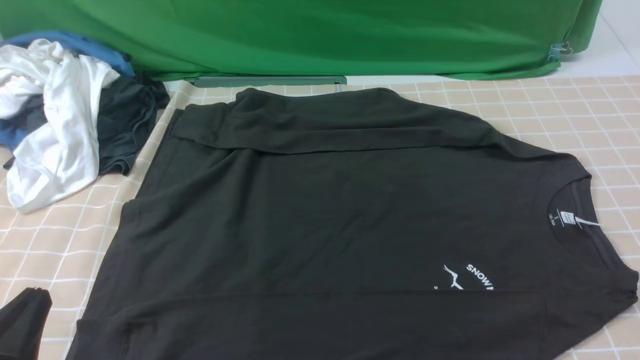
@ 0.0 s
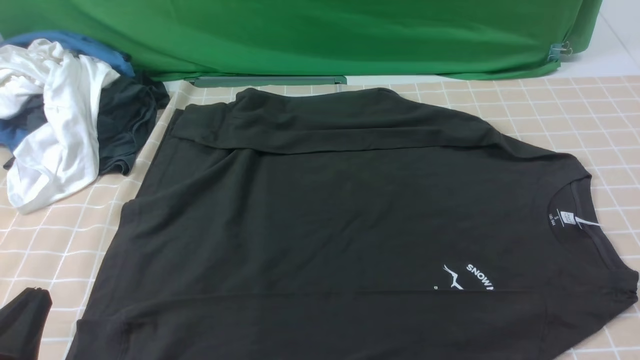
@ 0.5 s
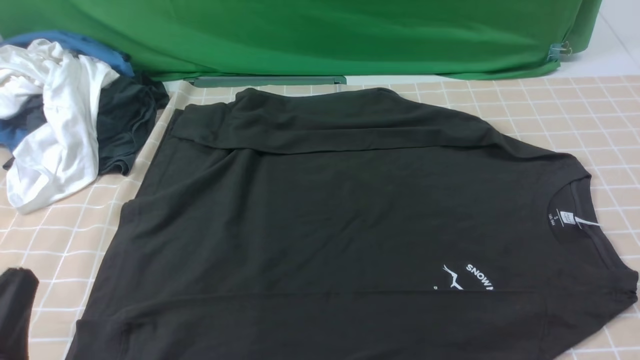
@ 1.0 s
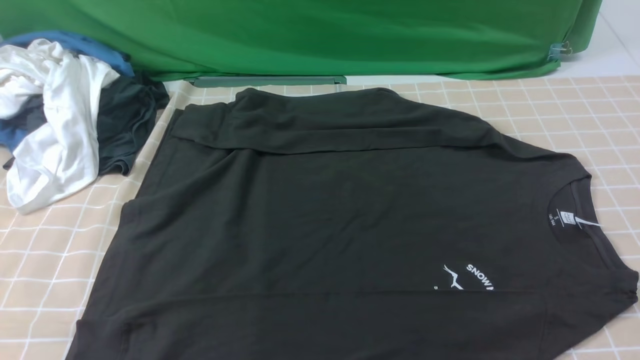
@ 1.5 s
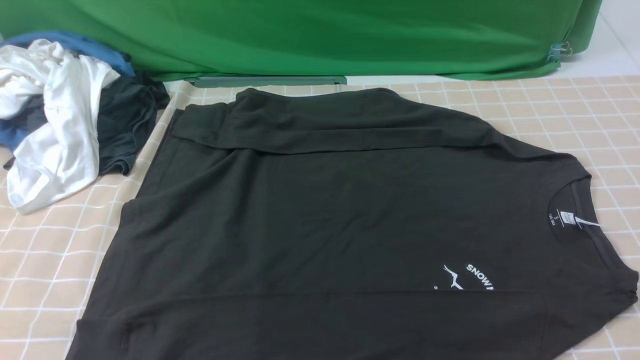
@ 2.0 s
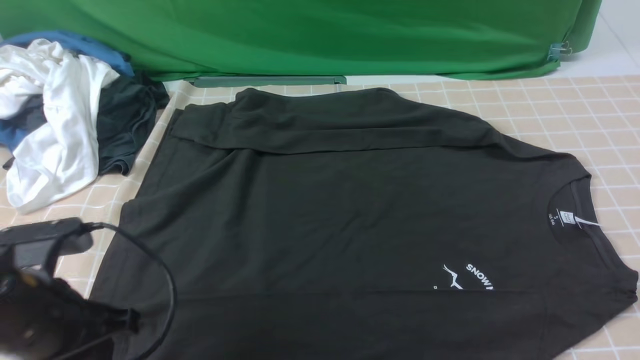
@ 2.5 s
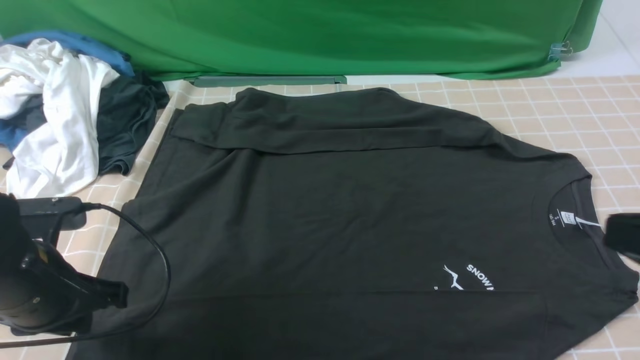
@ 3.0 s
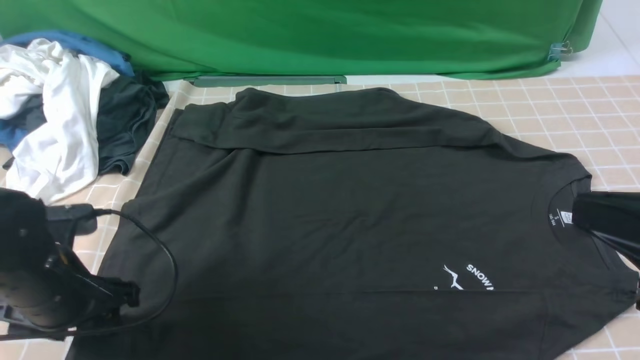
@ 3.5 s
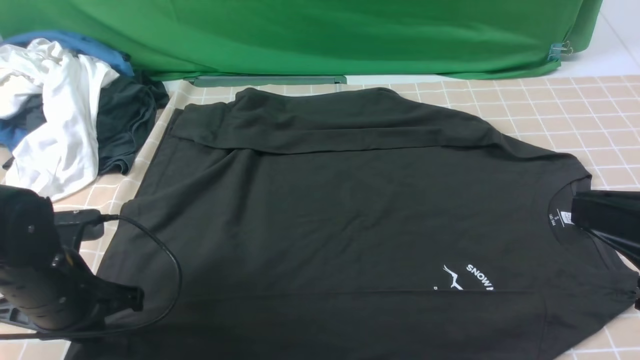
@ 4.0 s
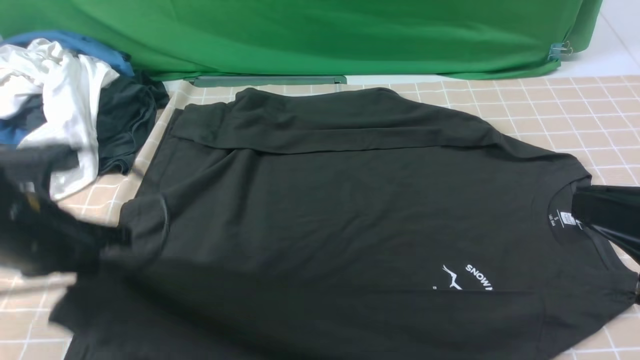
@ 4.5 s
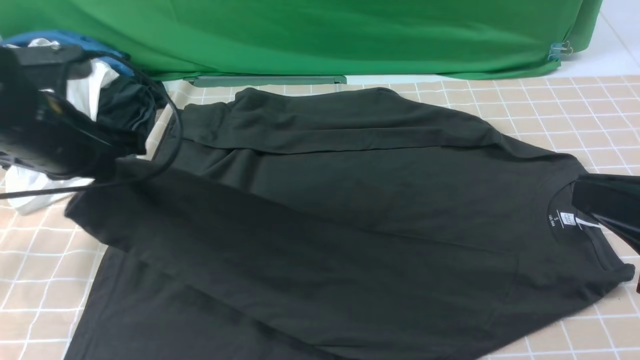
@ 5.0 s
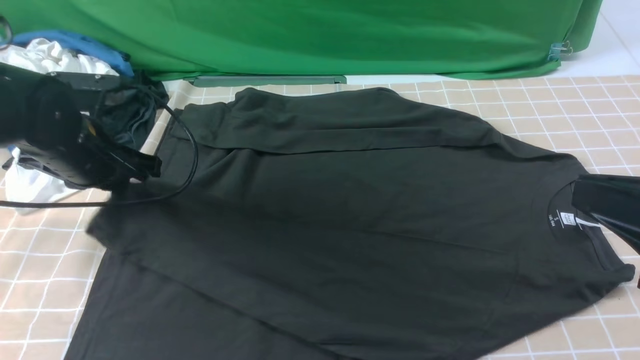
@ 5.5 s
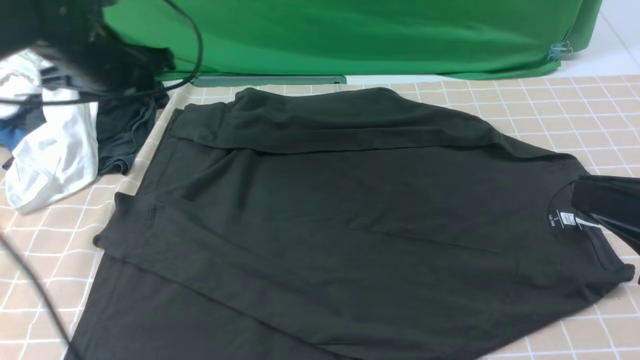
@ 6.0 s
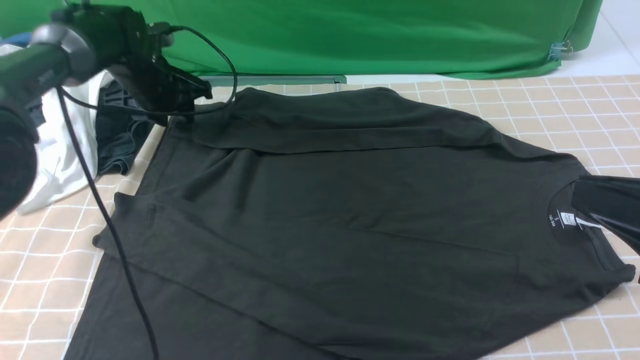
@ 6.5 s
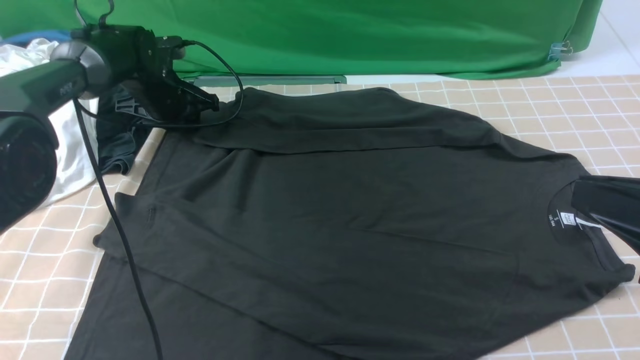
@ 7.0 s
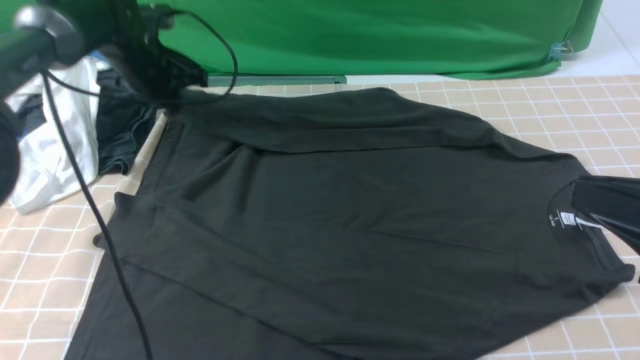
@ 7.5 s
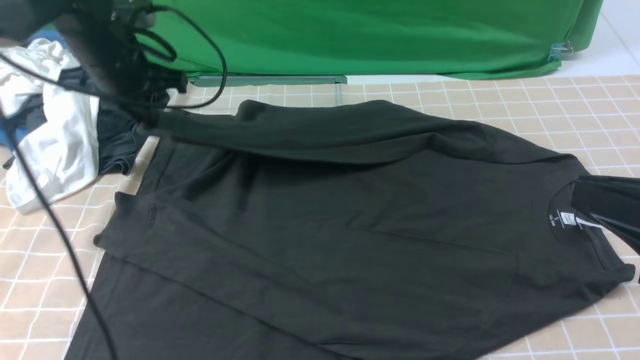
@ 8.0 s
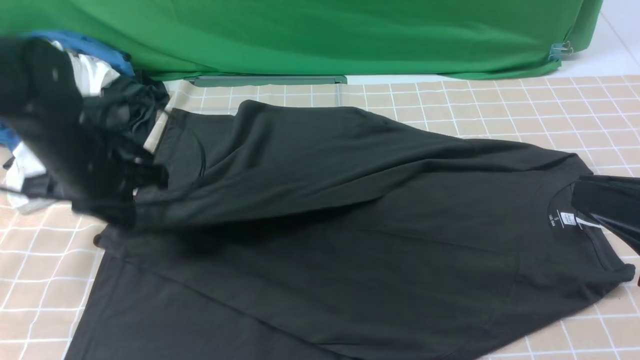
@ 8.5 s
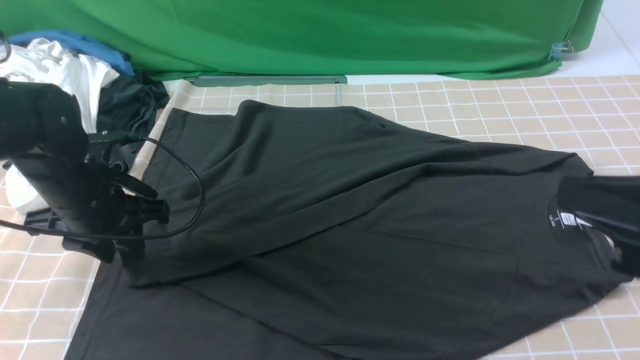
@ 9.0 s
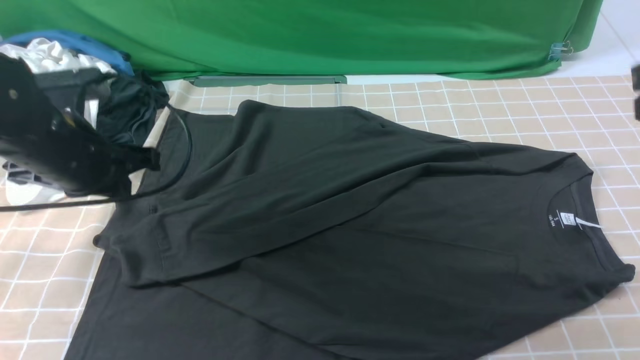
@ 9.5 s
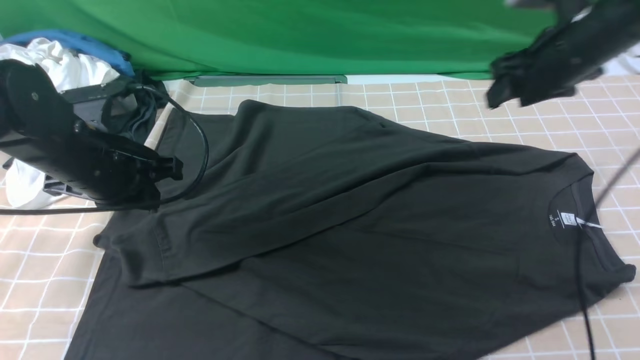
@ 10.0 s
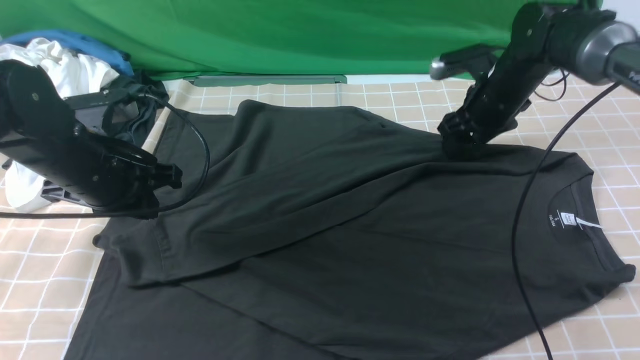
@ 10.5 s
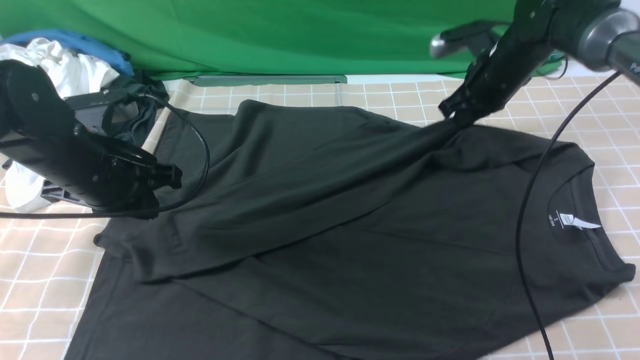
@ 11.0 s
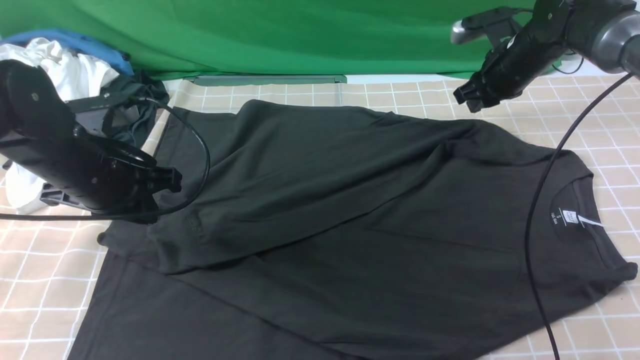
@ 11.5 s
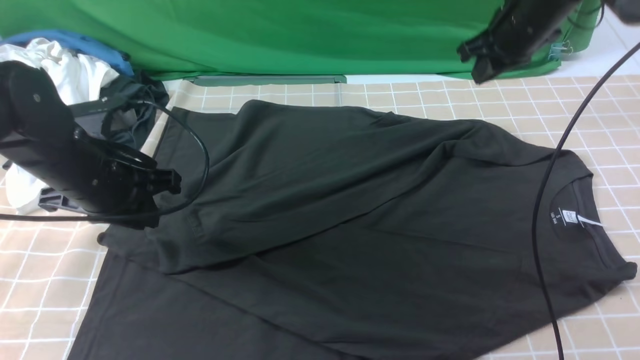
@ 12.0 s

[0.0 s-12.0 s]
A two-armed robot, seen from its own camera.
Step, 0.0 to 3.5 s: use the left arm to clamp the cuff closest to it.
Step, 4.0 to 5.5 s: use the left arm to drag and place the cuff at the centered position on the left edge of the fabric.
Step, 6.0 to 7.0 s: use the left arm to clamp the cuff farthest from it.
0.0 to 2.0 s: The left gripper goes roughly 10 cm upward.
2.0 to 4.0 s: The right gripper travels upward, to the left and forward by some 15 cm, and closes its fingers, while the left gripper is displaced forward and downward by about 20 cm, and opens, then closes again.
4.0 to 6.0 s: The left gripper moves forward and upward, some 20 cm, and opens its fingers.
6.0 to 8.0 s: The left gripper reaches approximately 10 cm downward, then returns, and closes its fingers.
8.0 to 10.0 s: The right gripper moves forward, roughly 35 cm, and opens, while the left gripper heads backward, covering roughly 10 cm, and opens, then closes again.
10.0 to 12.0 s: The right gripper shifts approximately 5 cm forward, reaches approximately 10 cm downward, then returns, and closes up.

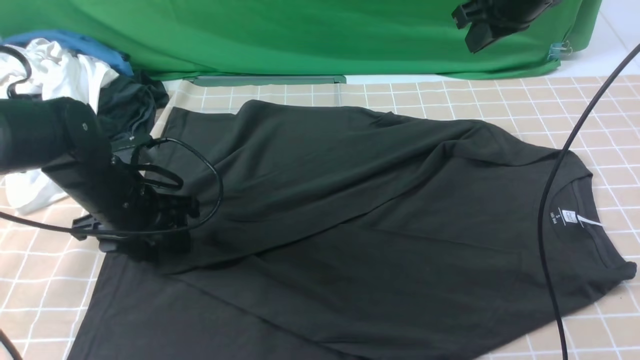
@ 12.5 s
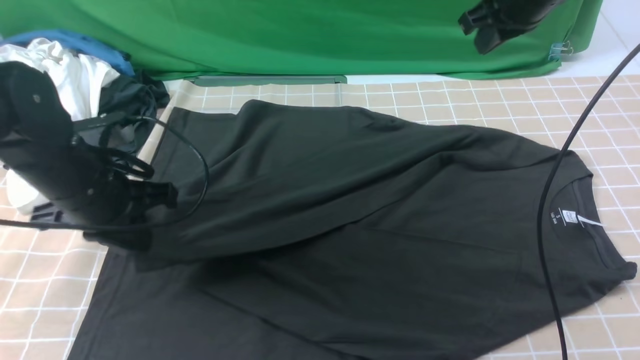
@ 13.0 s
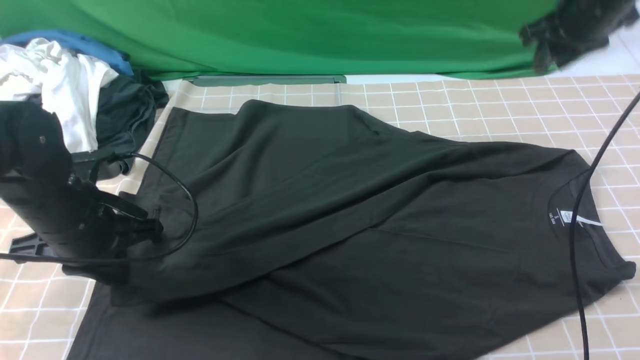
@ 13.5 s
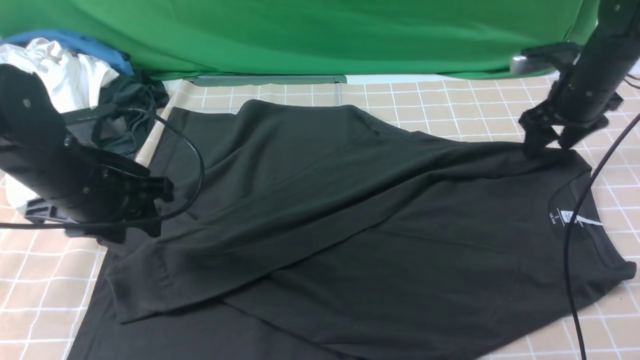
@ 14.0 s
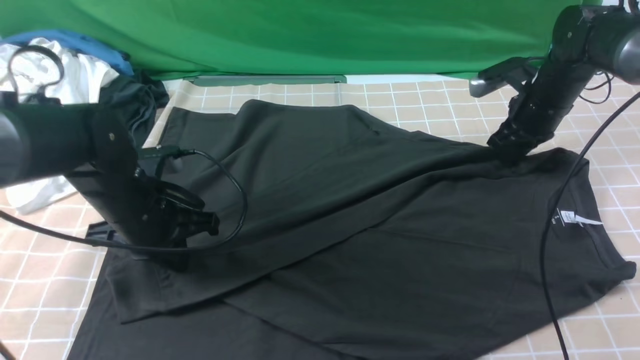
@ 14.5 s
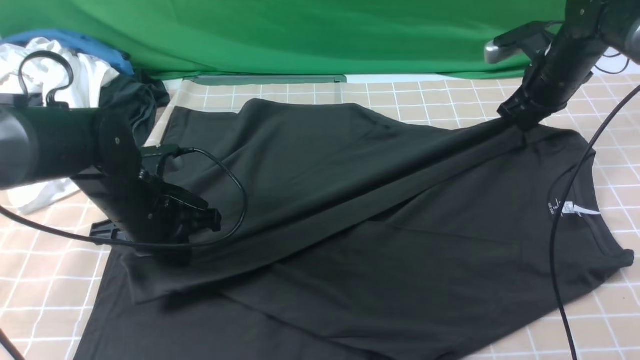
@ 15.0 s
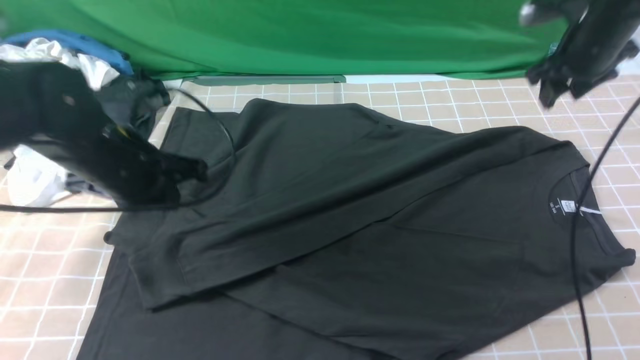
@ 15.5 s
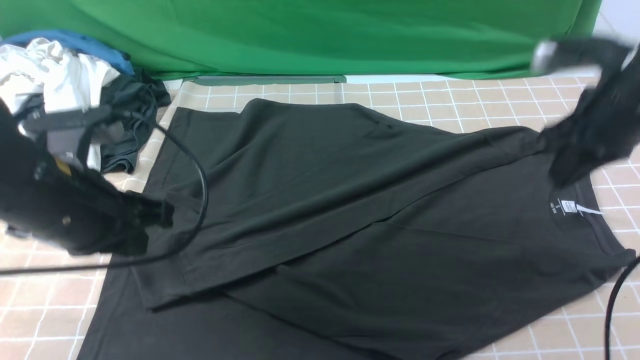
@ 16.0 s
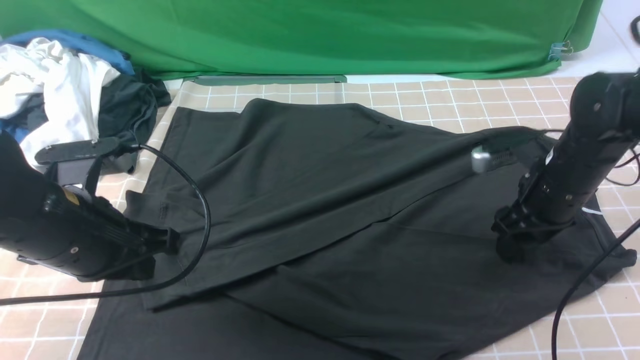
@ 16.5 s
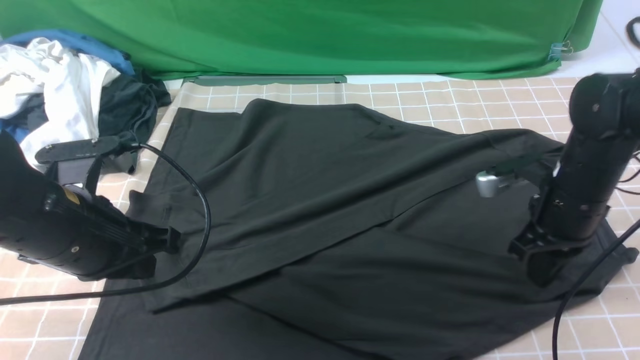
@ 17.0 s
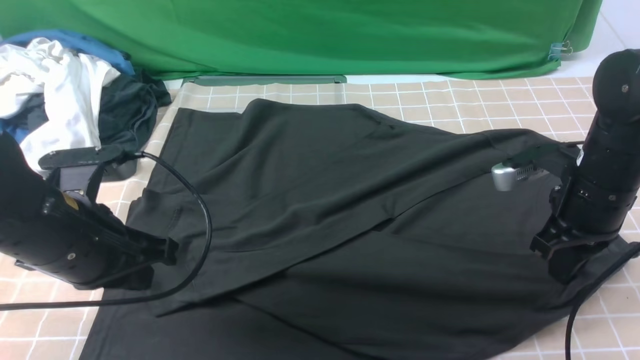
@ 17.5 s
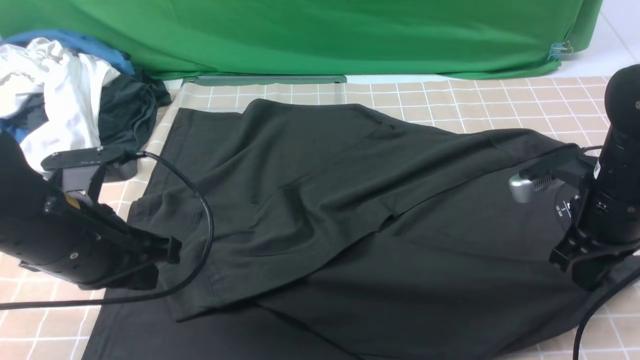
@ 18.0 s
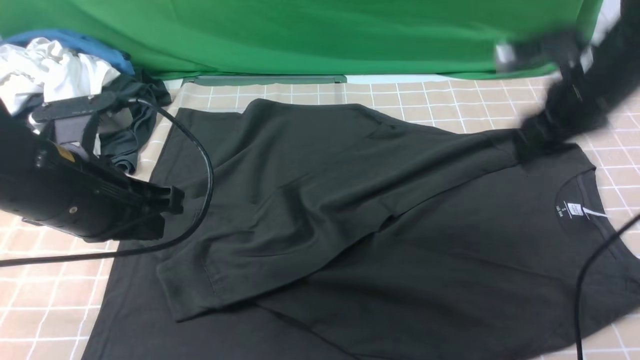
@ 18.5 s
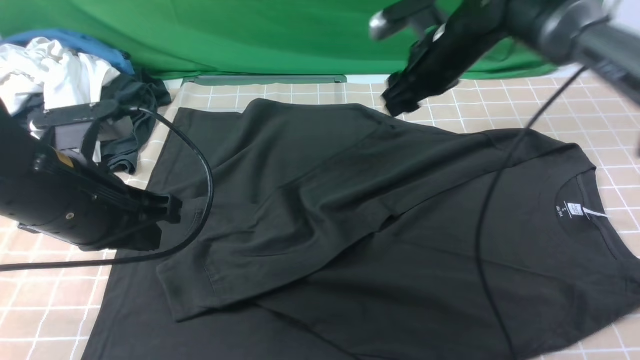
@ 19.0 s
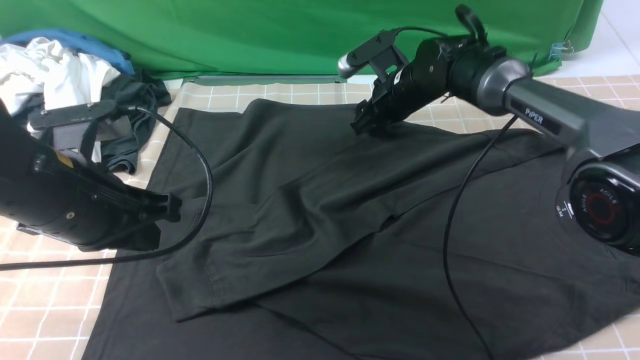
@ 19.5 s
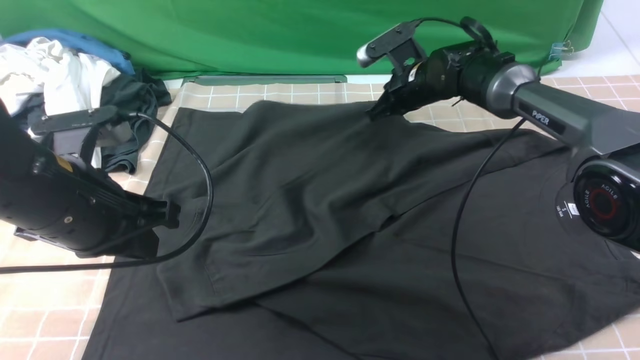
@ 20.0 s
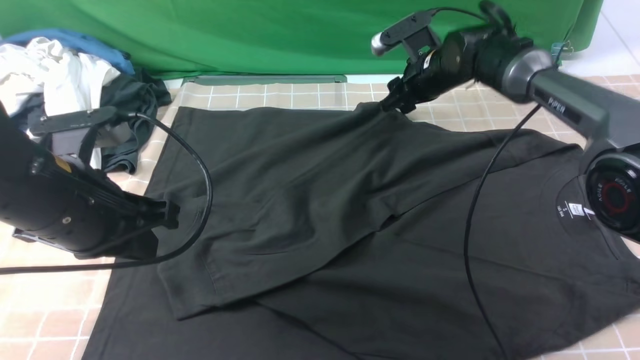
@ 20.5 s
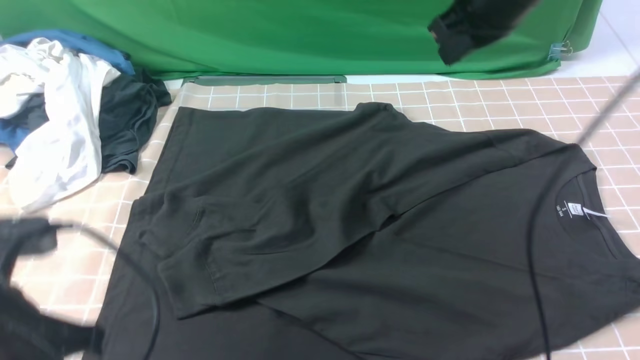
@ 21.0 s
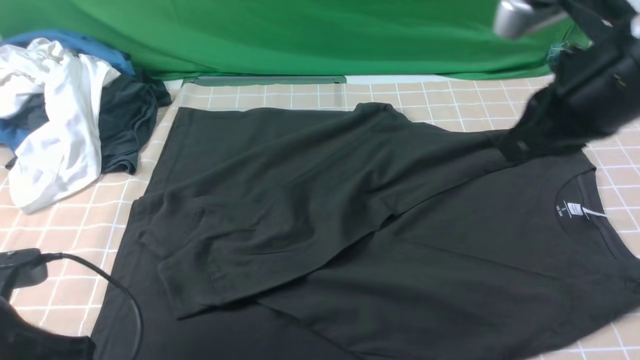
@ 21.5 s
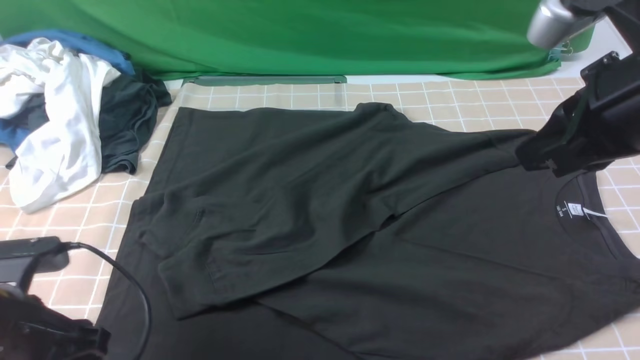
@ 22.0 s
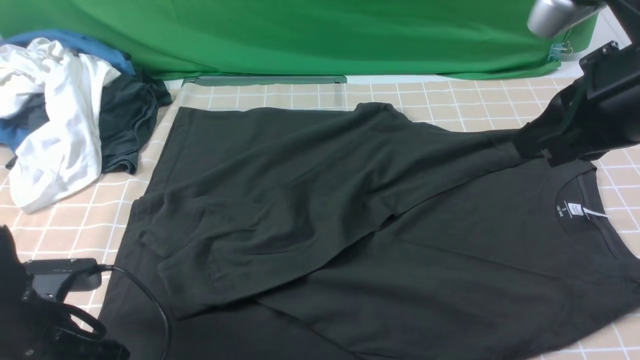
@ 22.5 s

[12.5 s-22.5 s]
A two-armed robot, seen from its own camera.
12.5 to 14.5 s: The right gripper heads downward and to the right, covering some 15 cm, and opens and closes again. Meanwhile the left gripper closes.
14.5 to 16.5 s: The right gripper travels backward by approximately 15 cm, and opens up. Meanwhile the left gripper heads backward and upward, covering about 10 cm.
16.5 to 18.5 s: The right gripper moves upward, approximately 10 cm, and closes and opens again.
18.5 to 20.5 s: The right gripper shifts approximately 20 cm forward, to the left and downward, and closes, then opens again.
20.5 to 22.5 s: The left gripper goes about 10 cm downward and to the left, and opens up; the right gripper moves backward and upward, some 35 cm, and closes.
